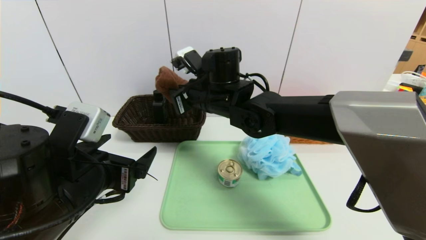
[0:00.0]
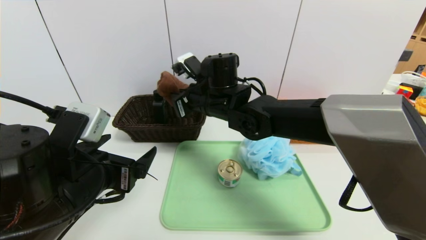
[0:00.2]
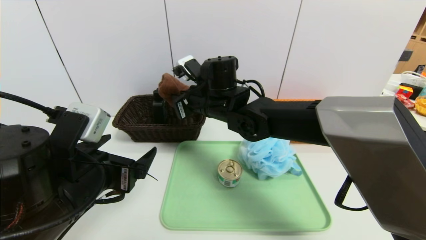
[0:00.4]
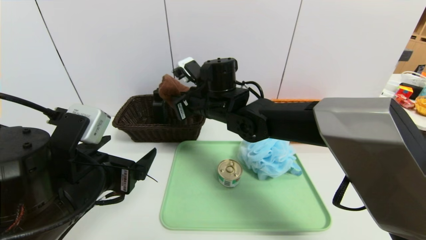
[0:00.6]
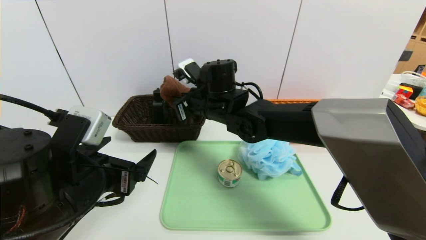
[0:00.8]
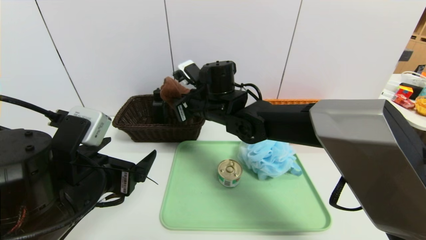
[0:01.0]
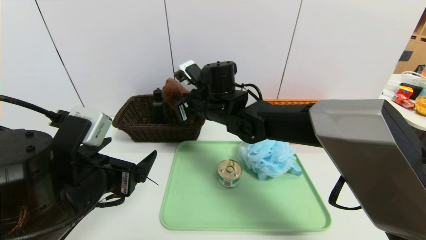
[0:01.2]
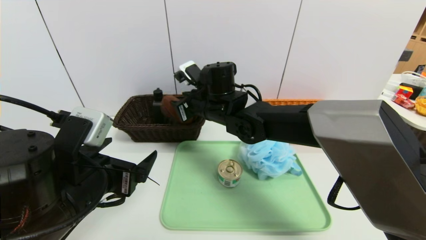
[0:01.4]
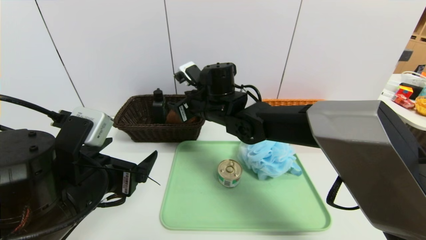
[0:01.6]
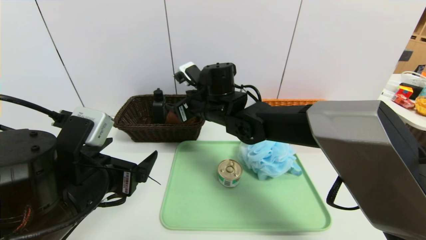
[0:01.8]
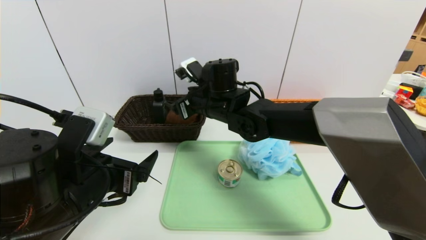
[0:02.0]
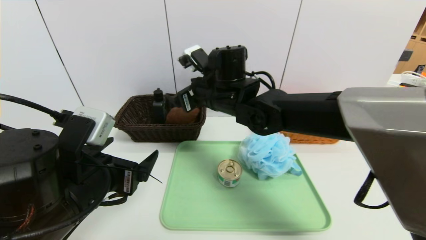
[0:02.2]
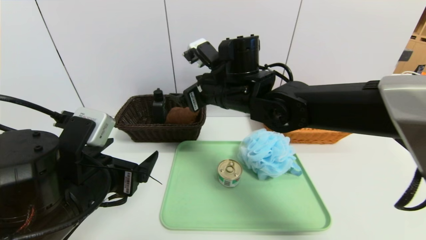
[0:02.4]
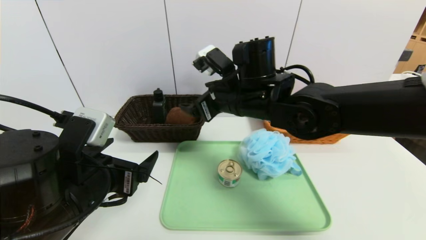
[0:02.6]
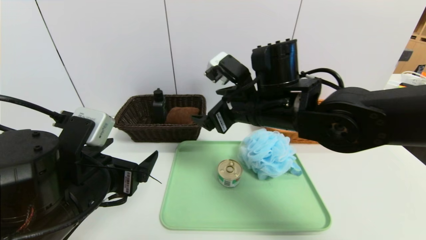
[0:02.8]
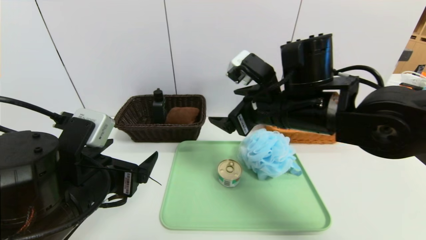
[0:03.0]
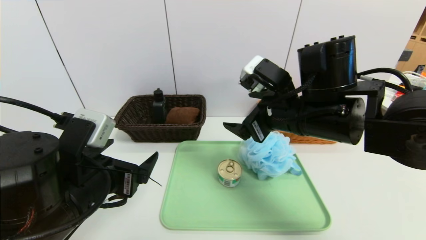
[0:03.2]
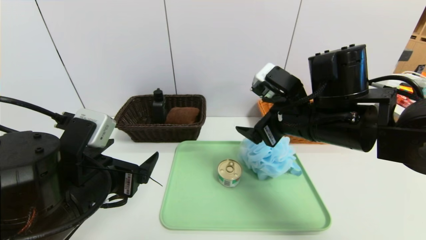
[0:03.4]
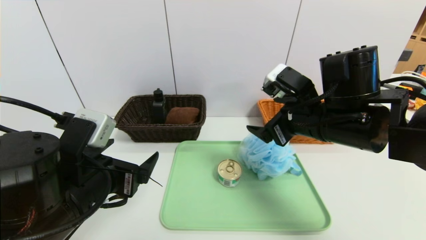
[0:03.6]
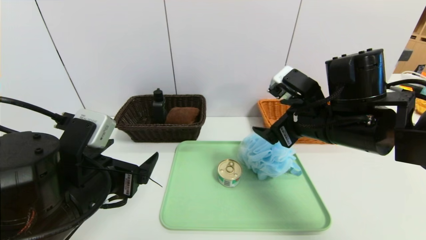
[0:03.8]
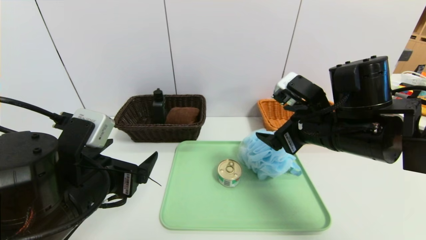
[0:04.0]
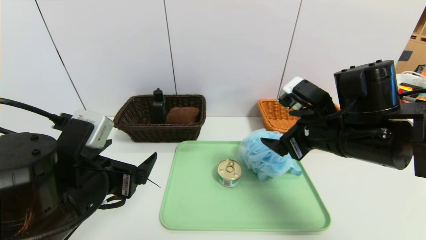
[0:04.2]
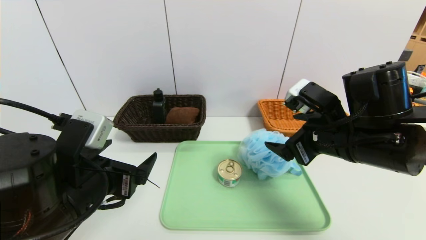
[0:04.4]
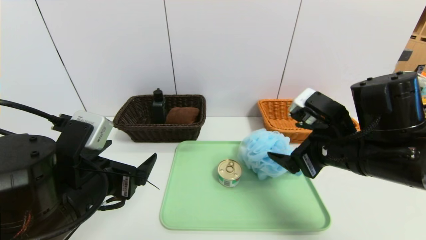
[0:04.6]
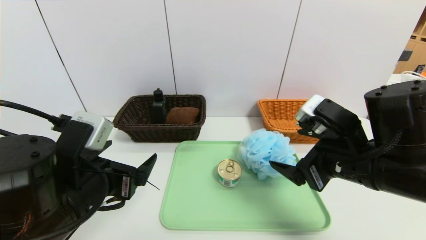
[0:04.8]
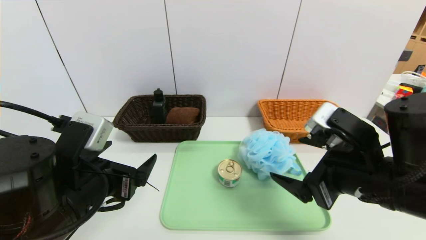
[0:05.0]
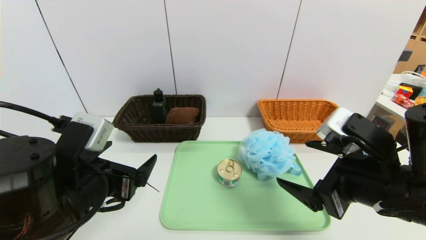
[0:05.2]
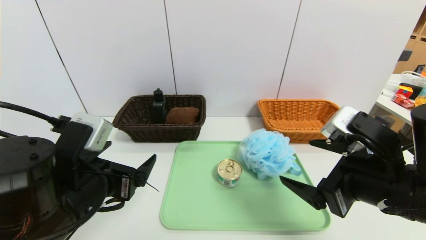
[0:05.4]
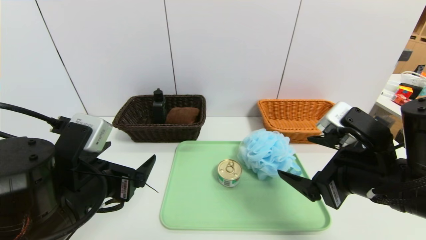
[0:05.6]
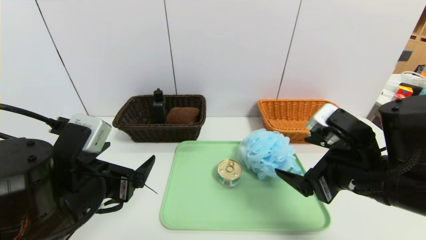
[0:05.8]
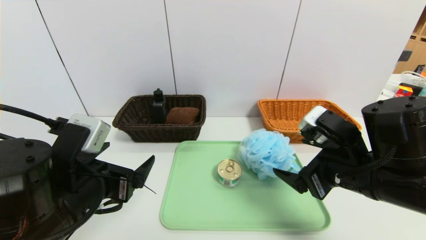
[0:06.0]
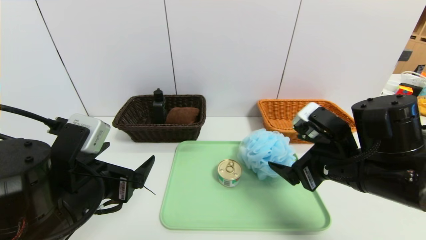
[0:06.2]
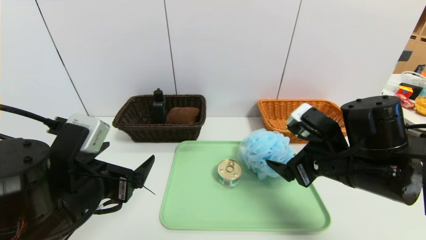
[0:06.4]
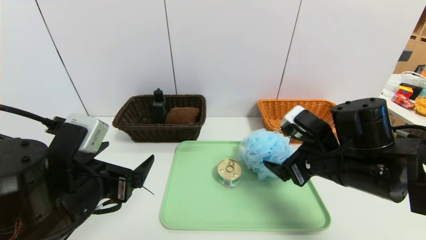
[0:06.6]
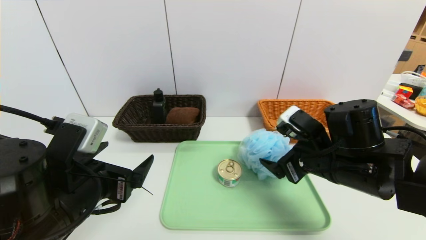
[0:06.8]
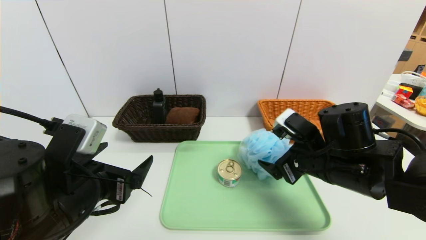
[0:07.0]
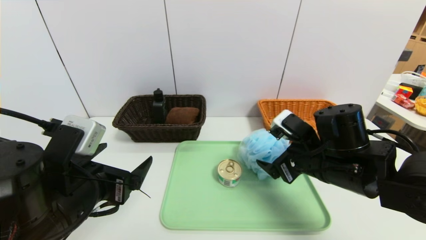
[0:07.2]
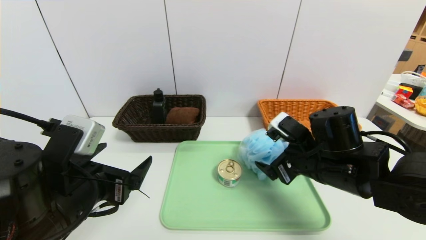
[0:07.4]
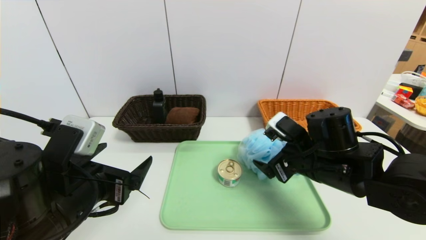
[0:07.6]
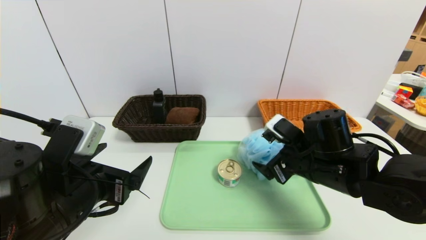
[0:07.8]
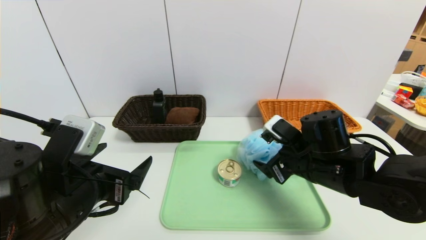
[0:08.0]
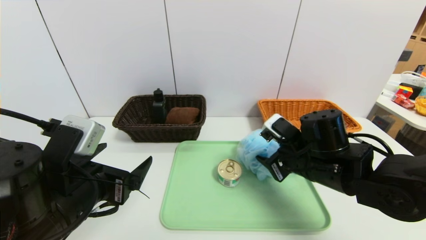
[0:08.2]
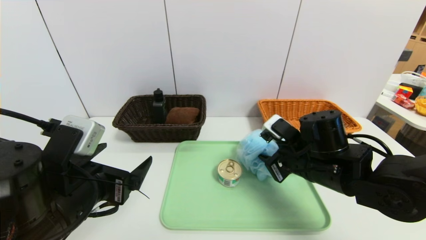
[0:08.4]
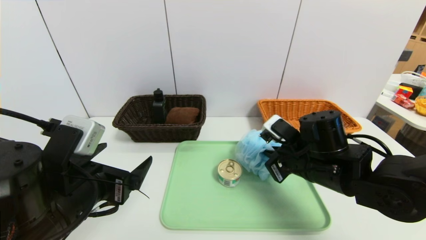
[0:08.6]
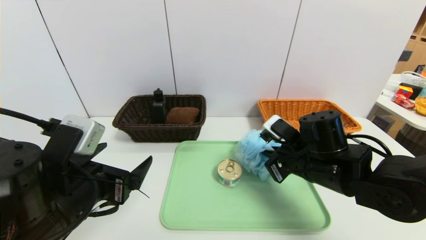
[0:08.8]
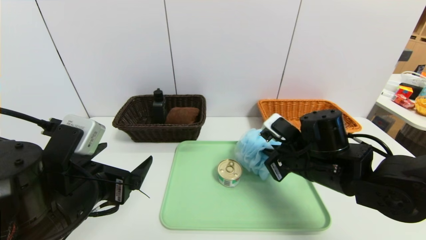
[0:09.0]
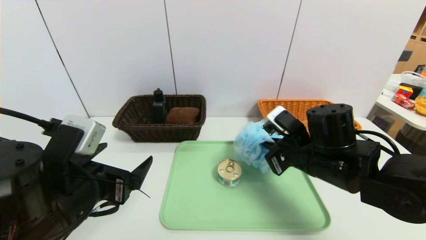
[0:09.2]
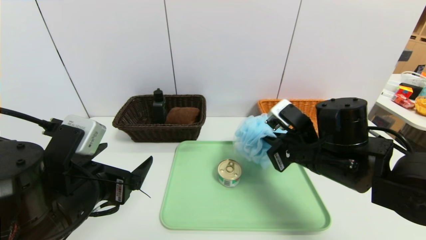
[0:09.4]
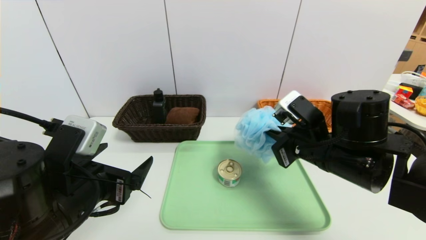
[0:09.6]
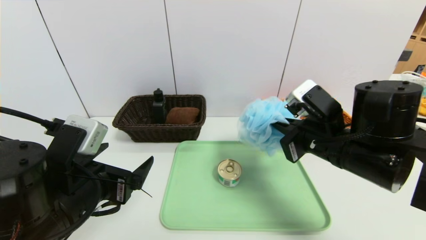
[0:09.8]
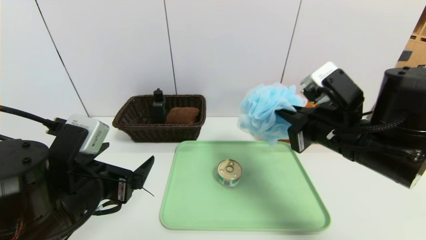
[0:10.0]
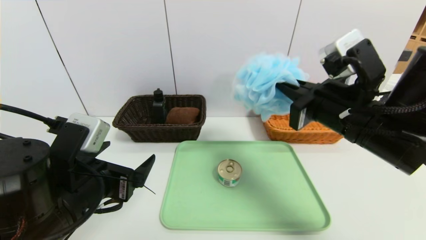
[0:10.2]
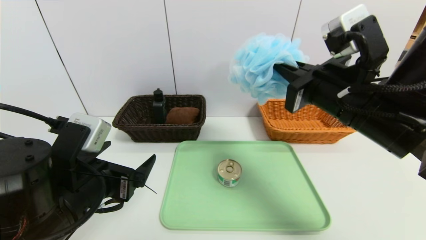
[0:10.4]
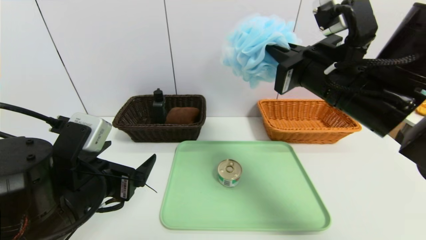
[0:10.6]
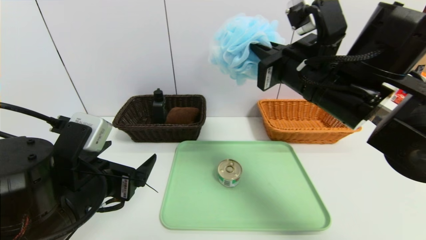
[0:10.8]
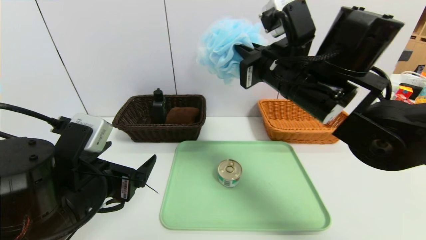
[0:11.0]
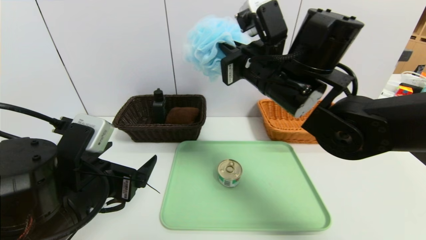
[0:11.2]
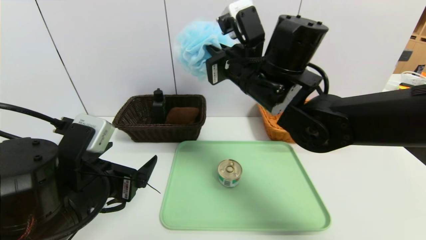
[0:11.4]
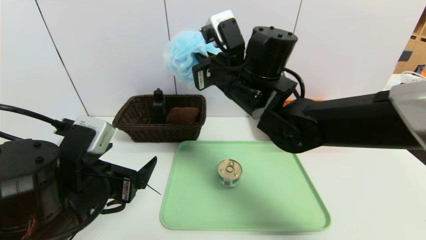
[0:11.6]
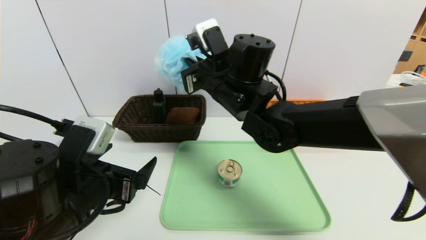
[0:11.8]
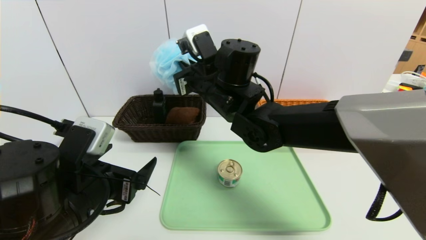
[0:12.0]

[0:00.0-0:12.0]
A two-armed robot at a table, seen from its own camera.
Task of the whole recording: place the food in the right basket with the right gripper, and place the non food items in the left basket with the left gripper.
Step, 0:00.0 to 0:02.0: Grasp the brown towel and put it in the left basket.
0:00.0 to 0:01.6: The right gripper opens its fingers.
0:01.6 to 0:03.0: The right gripper is displaced to the right and backward by roughly 15 cm.
0:03.0 to 0:04.4: The right gripper shifts approximately 10 cm to the right.
0:06.0 to 0:07.6: The right gripper goes some 5 cm forward.
0:07.6 to 0:09.0: The right gripper closes up.
0:09.0 to 0:10.4: The right gripper is displaced upward by some 15 cm.
0:10.4 to 0:12.0: The right gripper shifts approximately 20 cm to the left and forward.

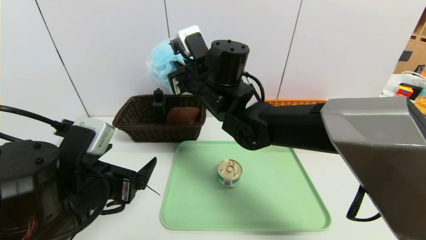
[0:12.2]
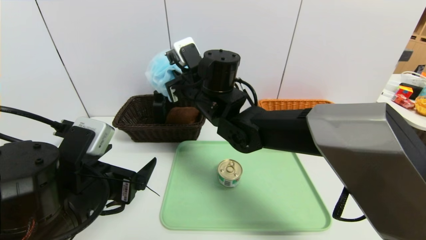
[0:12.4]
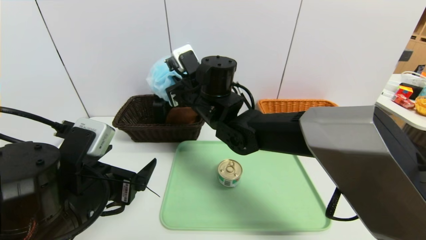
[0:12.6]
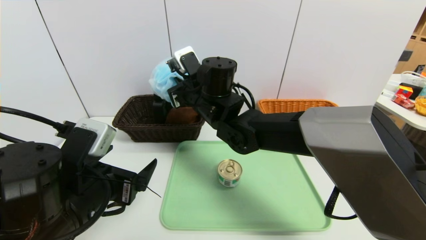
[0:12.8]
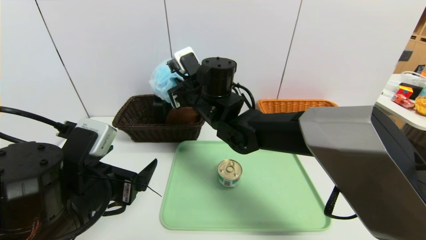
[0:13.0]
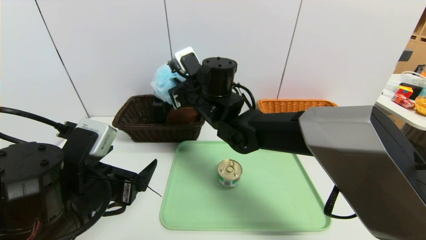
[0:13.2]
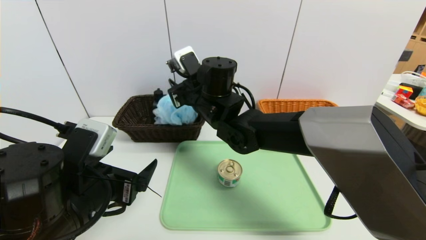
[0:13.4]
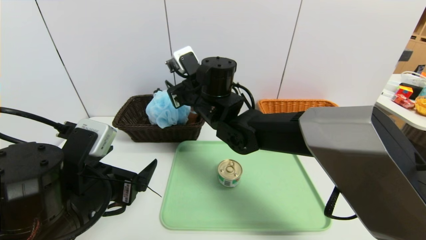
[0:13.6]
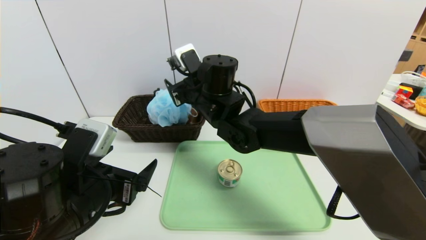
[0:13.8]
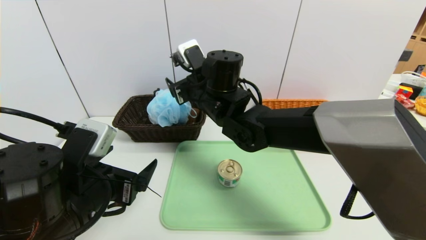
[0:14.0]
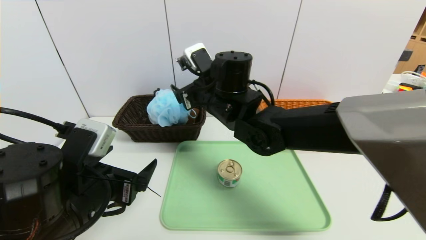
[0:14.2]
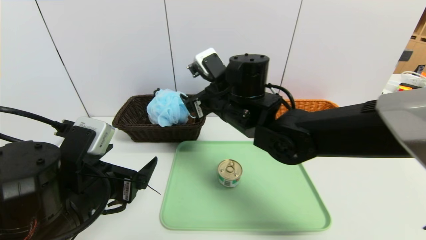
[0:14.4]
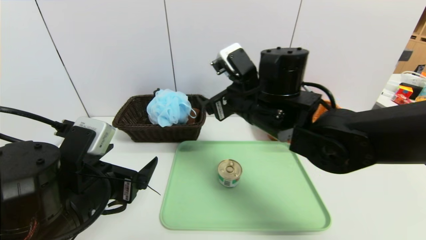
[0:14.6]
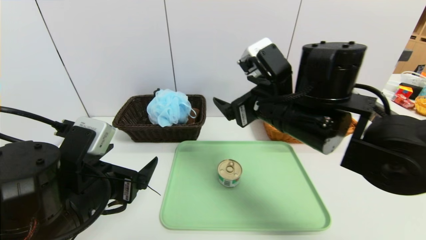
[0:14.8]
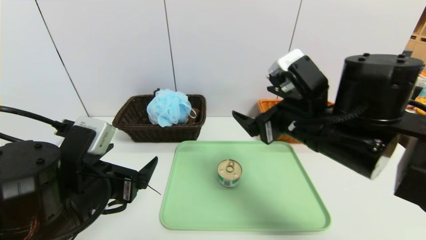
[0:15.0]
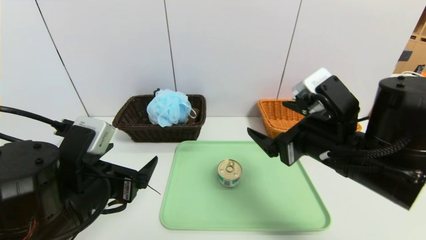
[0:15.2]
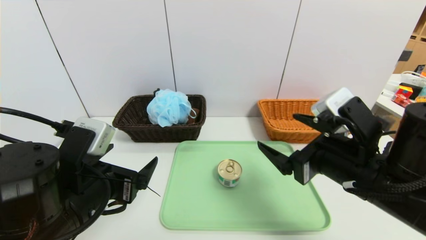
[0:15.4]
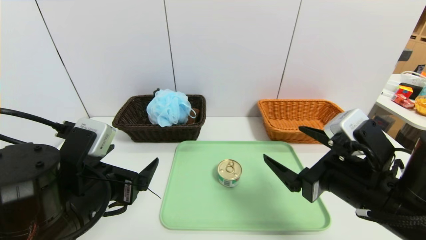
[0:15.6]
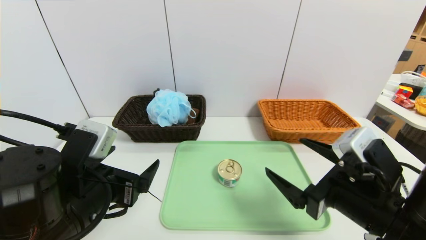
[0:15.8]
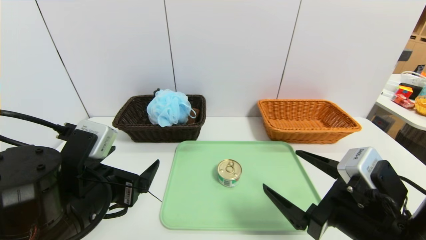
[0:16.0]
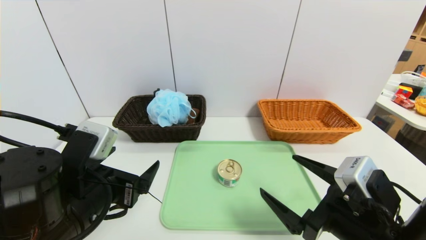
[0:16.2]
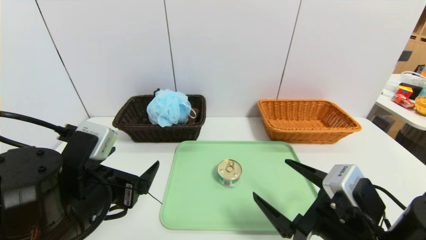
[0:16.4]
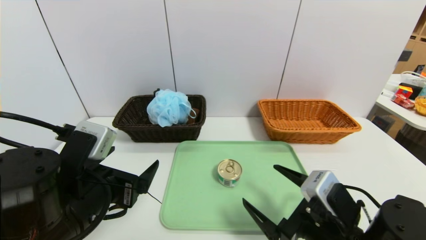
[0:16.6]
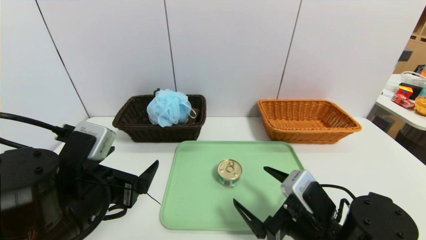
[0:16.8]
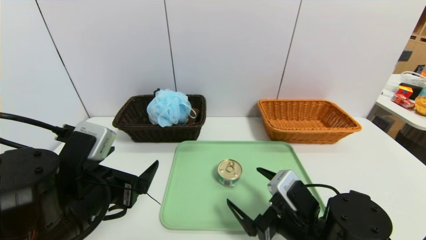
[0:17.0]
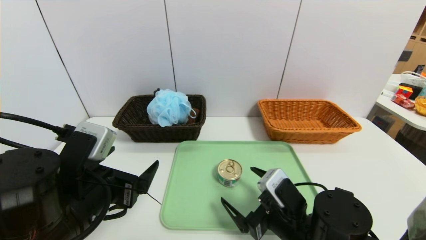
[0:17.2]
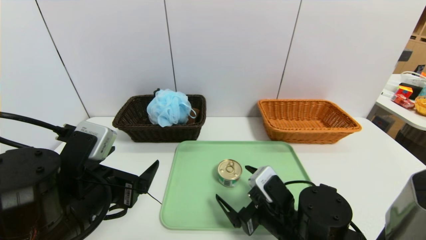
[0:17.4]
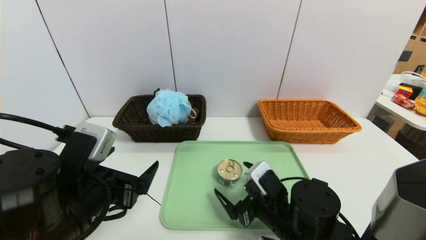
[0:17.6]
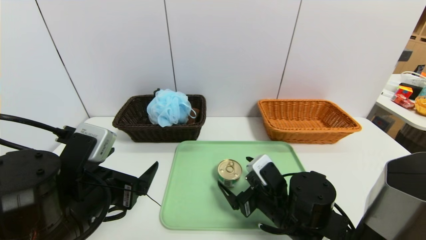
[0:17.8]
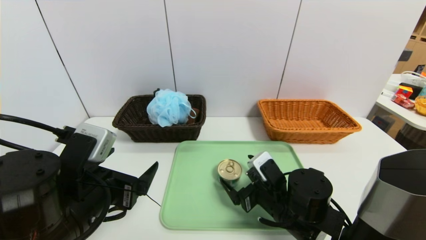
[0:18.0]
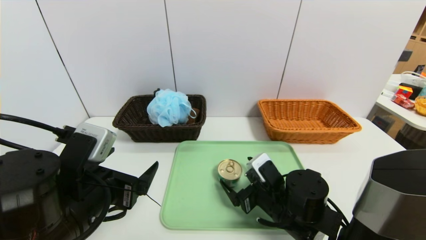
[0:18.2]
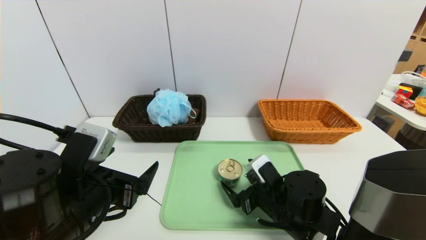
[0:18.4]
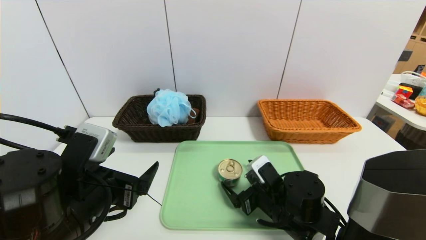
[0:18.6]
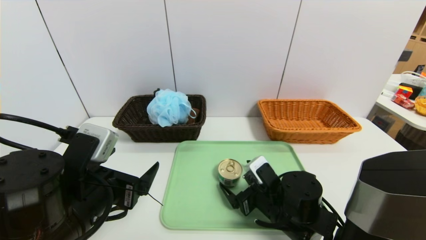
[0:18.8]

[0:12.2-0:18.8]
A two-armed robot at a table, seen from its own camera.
Task of the whole recording: place the food in the right basket with the right gripper, and place the non food items in the left basket with the left gripper.
0:12.2 to 0:13.8: The right gripper opens.
0:13.8 to 0:15.4: The right gripper moves to the right and backward, roughly 25 cm.
0:15.4 to 0:17.2: The right gripper heads downward, covering roughly 15 cm.
0:17.2 to 0:18.8: The right gripper shifts approximately 5 cm forward.
